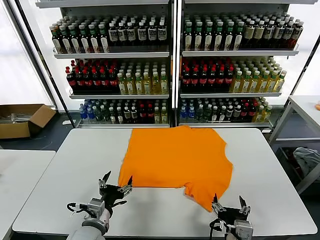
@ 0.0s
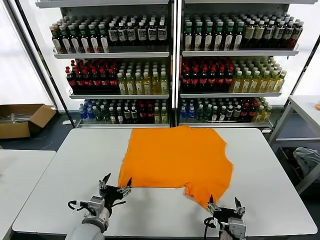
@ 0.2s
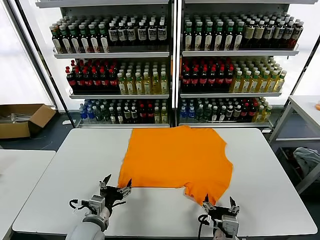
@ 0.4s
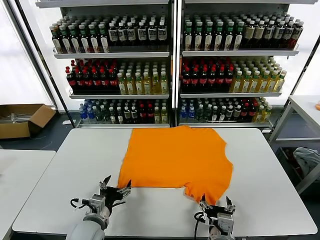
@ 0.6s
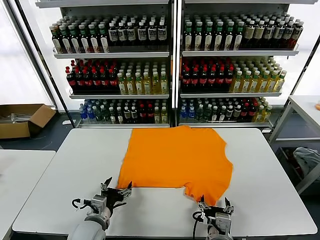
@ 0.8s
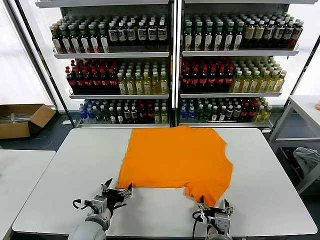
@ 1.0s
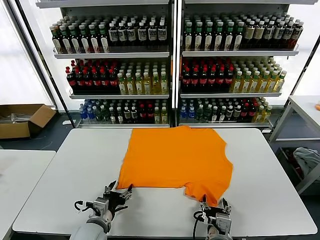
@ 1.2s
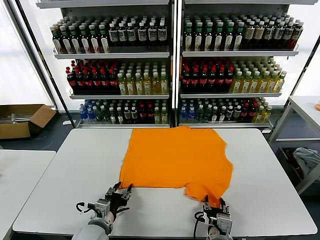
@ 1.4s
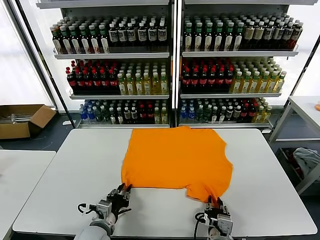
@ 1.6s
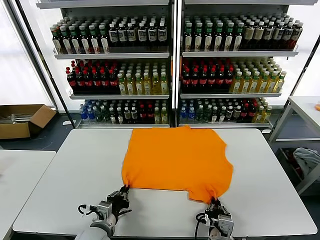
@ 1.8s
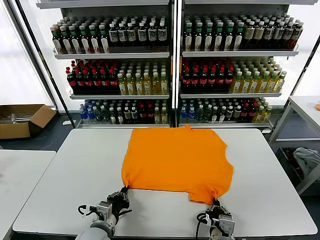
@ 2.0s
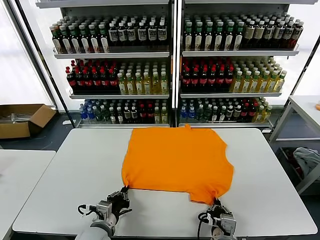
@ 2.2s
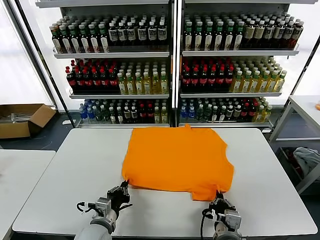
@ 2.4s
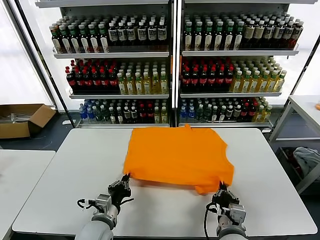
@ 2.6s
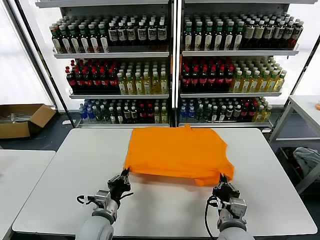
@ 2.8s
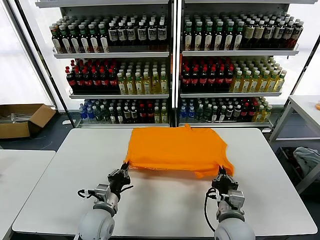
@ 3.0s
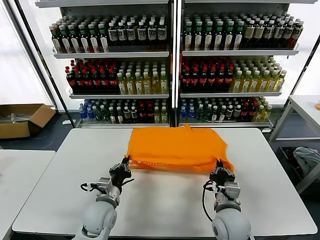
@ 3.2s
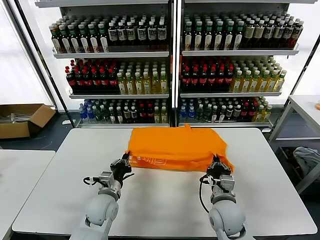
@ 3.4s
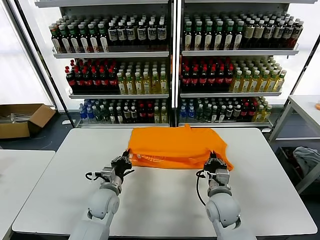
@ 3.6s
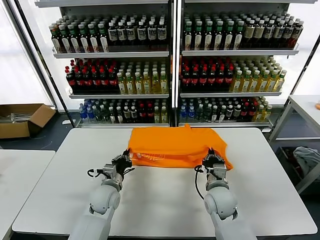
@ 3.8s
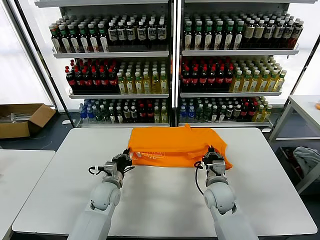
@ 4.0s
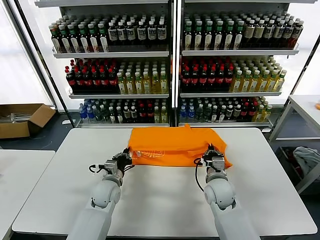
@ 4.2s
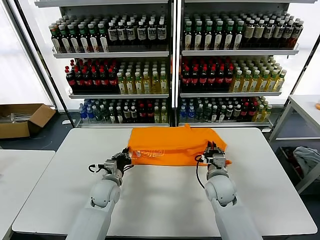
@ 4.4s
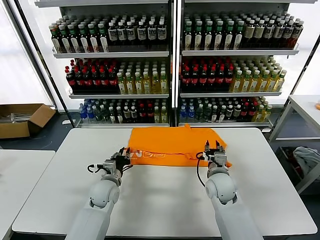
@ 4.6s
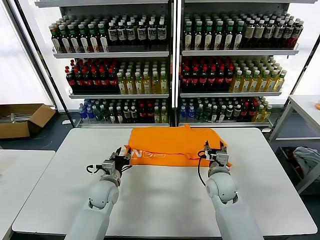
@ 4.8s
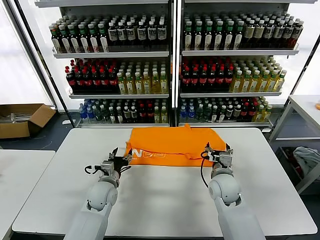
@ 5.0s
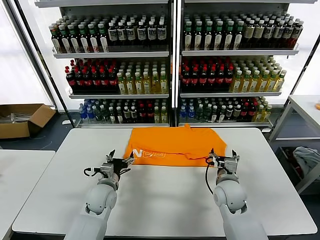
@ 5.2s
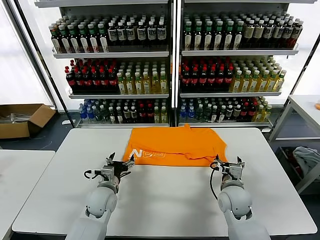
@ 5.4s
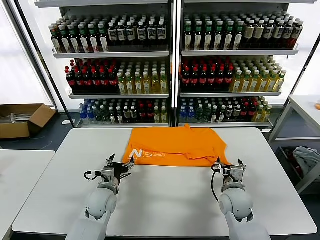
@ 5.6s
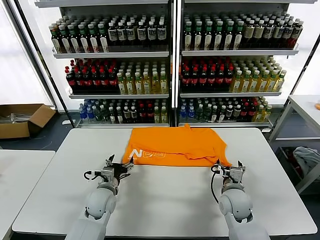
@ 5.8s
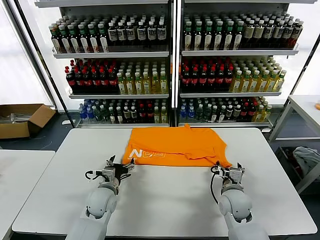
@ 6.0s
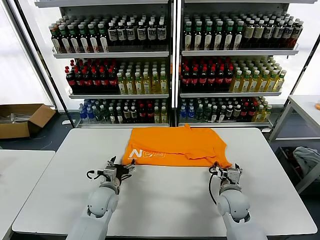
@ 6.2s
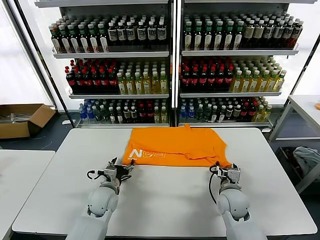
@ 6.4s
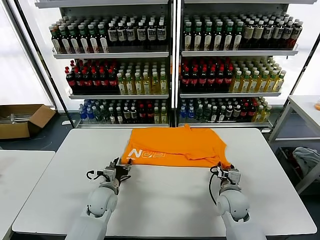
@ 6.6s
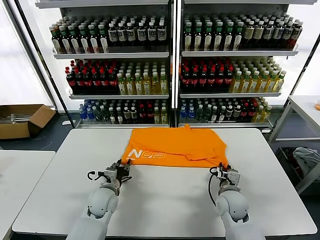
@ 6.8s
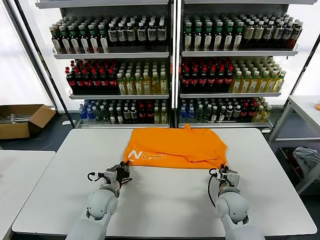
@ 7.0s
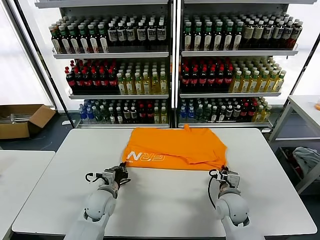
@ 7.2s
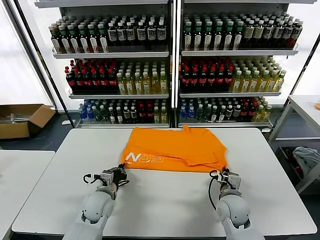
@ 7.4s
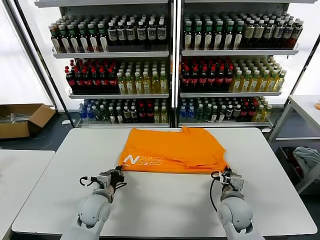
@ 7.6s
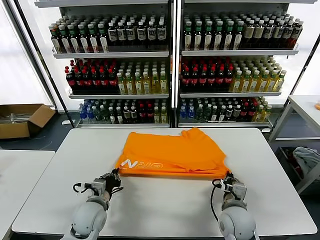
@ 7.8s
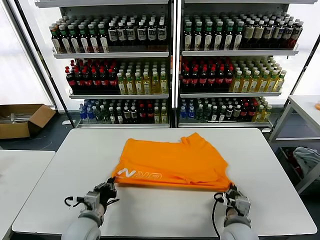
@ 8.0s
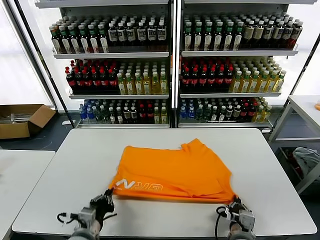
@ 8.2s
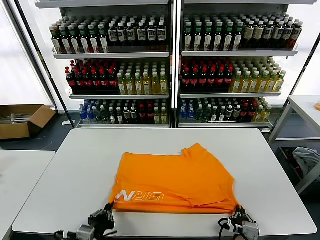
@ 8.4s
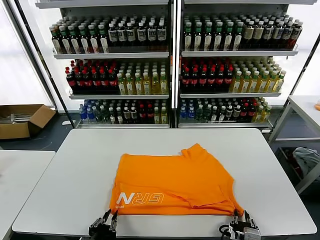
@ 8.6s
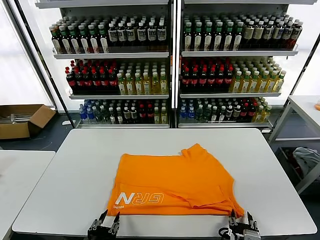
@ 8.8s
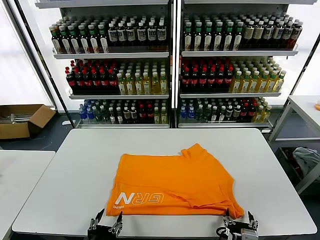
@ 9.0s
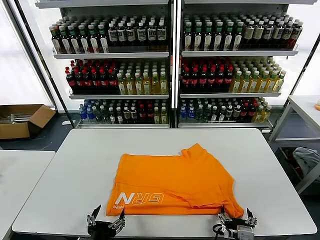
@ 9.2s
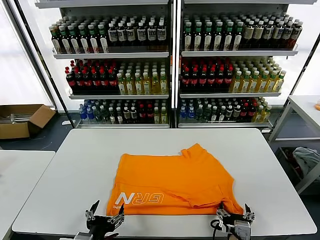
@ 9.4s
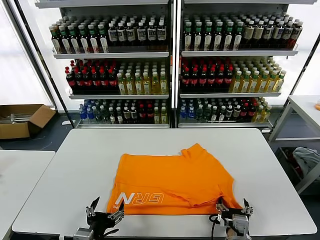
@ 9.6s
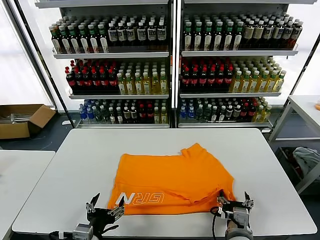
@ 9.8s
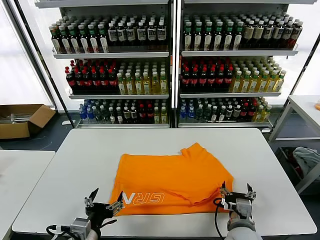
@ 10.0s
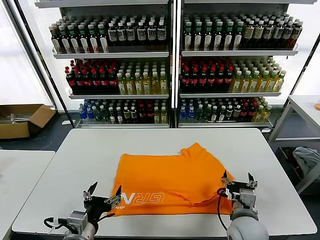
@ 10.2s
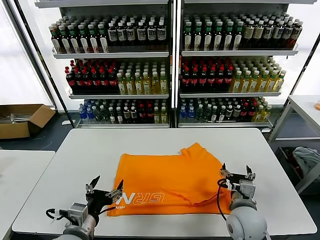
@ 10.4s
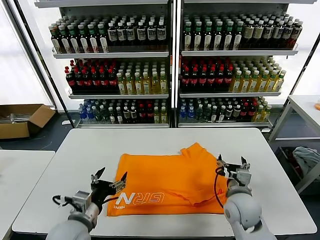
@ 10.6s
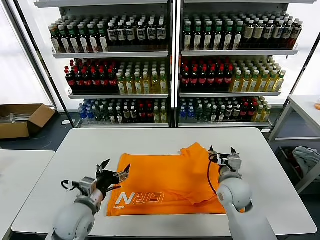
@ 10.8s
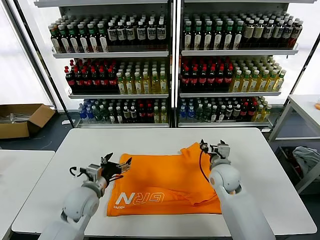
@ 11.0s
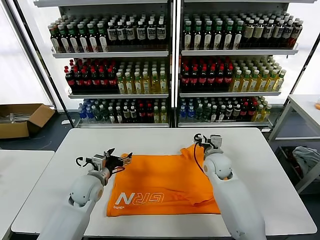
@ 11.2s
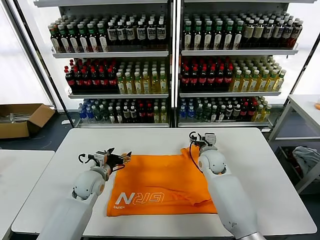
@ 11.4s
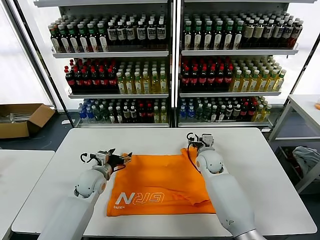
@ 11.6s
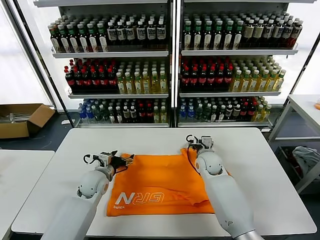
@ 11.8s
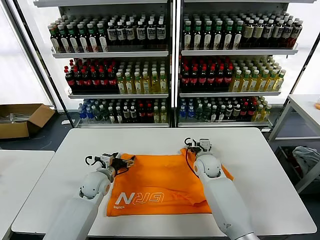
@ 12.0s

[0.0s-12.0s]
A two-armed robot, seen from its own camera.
Task of the whole recording: fold and organize the clothes.
Step, 0.0s to 1.8s: use both grippers simultaneously to clamp the lower edge of the clothing fabric.
Step, 2.0s to 4.8s: use both grippers to drag the lower edge of the fabric forward and fold it over the upper edge.
Step, 5.0s to 9.0s: Drag the clothes downward with both gripper.
1.6s to 3.0s: Both grippers move forward, some 5 cm.
3.0s to 4.4s: The grippers both shift forward by about 10 cm. The right gripper opens up.
4.4s to 6.0s: The left gripper opens, while the right gripper ends up approximately 5 cm from where it was, and opens up.
6.0s to 7.6s: The left gripper closes its fingers, while the right gripper moves backward, some 5 cm, and closes its fingers.
7.6s to 9.0s: The two grippers go about 20 cm backward. The right gripper opens up, while the left gripper opens.
9.0s to 10.4s: The left gripper travels forward by approximately 10 cm, while the right gripper is displaced forward by approximately 15 cm.
10.4s to 12.0s: The grippers both shift forward by about 20 cm.

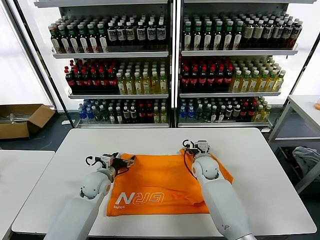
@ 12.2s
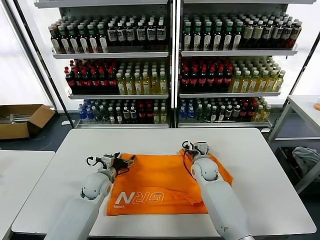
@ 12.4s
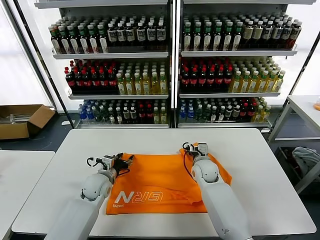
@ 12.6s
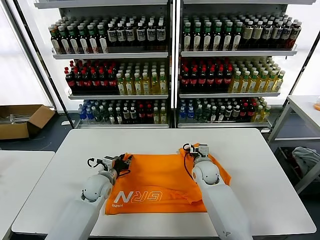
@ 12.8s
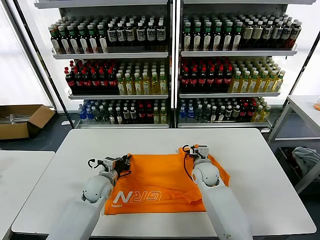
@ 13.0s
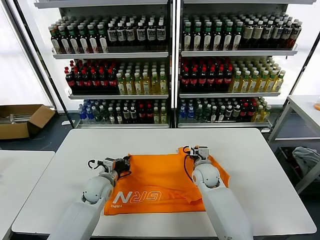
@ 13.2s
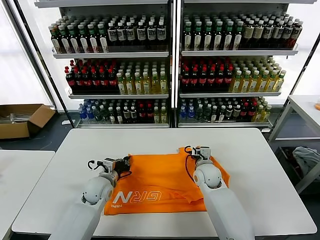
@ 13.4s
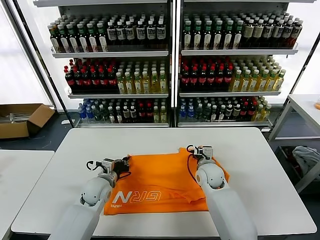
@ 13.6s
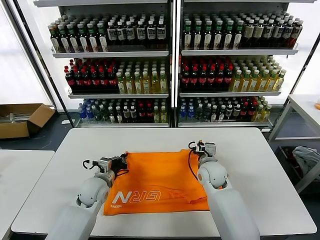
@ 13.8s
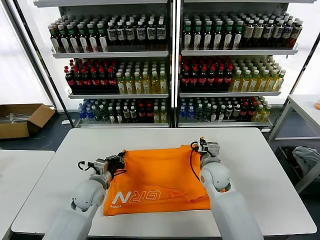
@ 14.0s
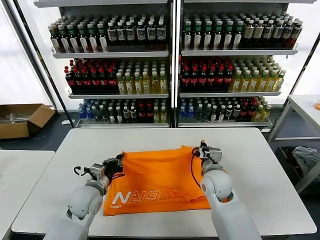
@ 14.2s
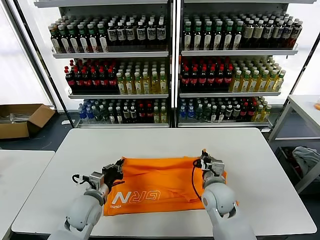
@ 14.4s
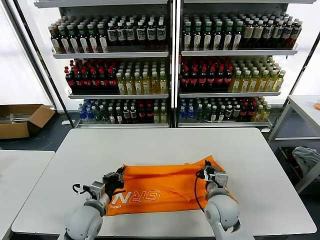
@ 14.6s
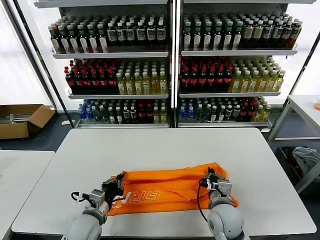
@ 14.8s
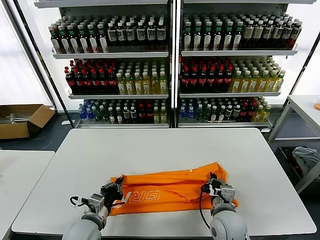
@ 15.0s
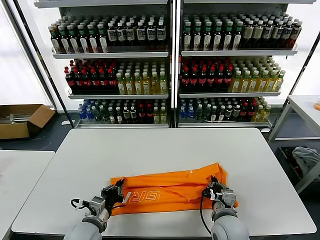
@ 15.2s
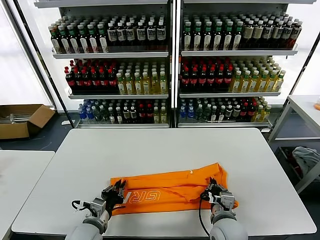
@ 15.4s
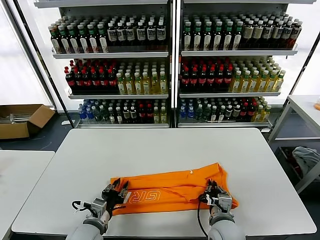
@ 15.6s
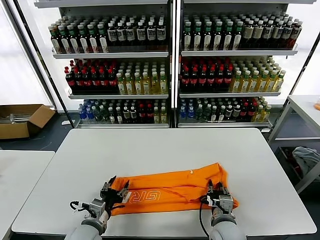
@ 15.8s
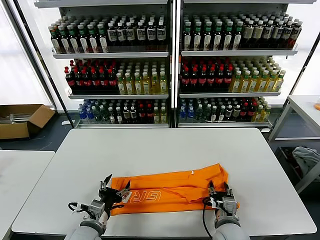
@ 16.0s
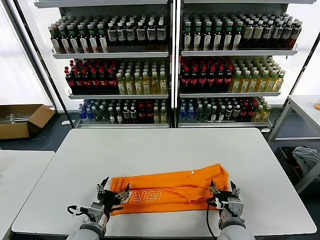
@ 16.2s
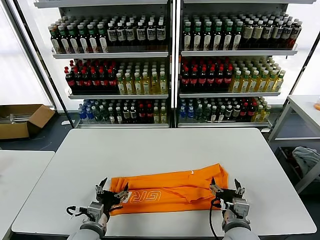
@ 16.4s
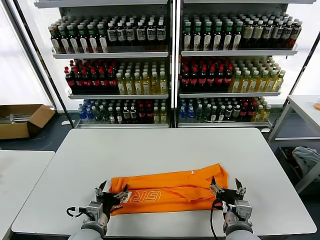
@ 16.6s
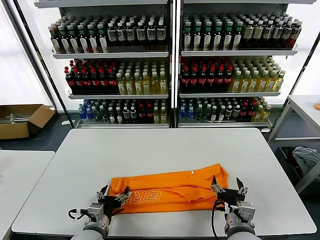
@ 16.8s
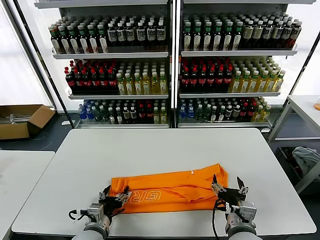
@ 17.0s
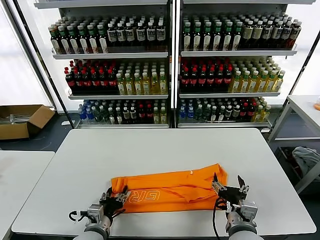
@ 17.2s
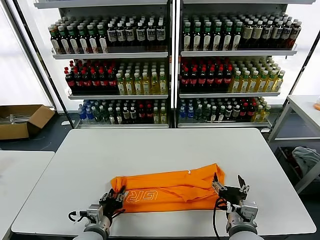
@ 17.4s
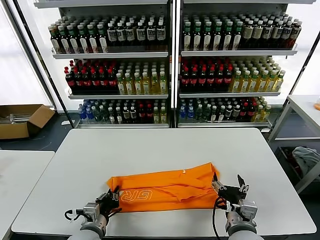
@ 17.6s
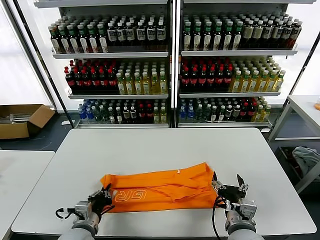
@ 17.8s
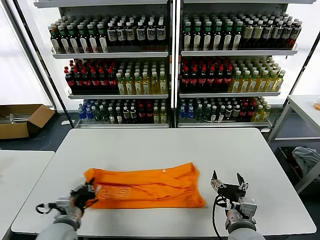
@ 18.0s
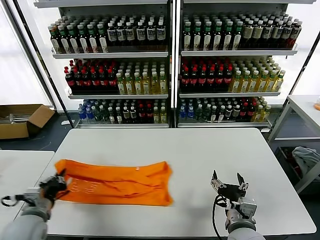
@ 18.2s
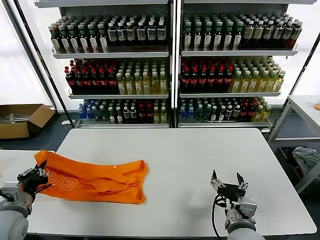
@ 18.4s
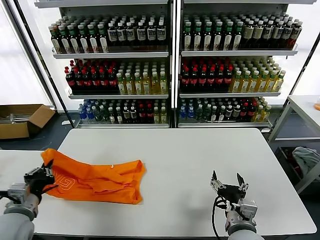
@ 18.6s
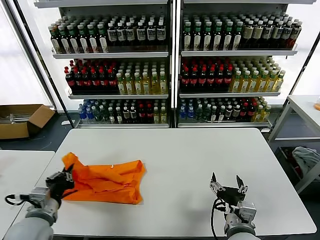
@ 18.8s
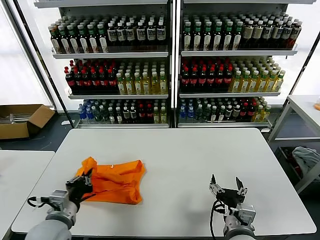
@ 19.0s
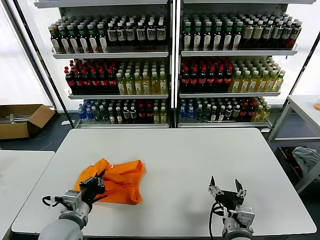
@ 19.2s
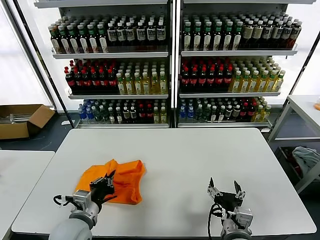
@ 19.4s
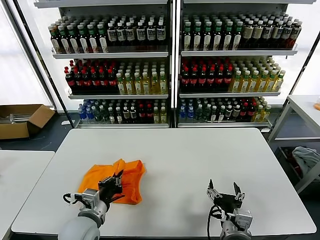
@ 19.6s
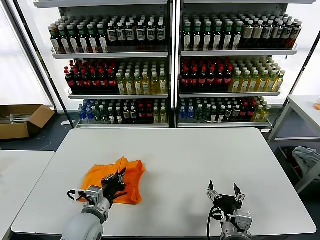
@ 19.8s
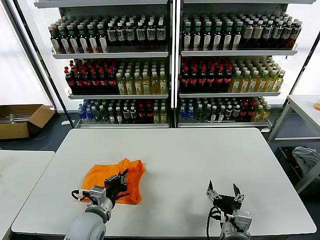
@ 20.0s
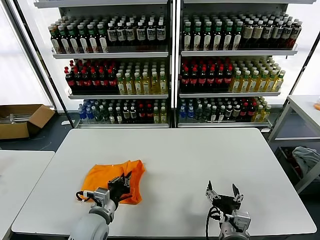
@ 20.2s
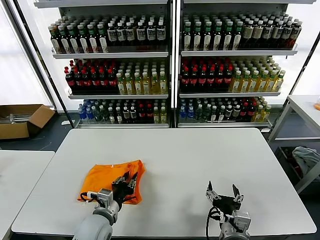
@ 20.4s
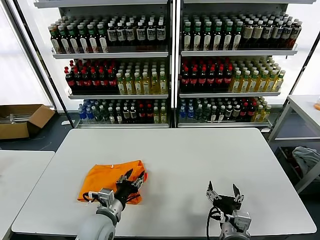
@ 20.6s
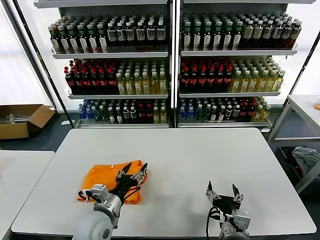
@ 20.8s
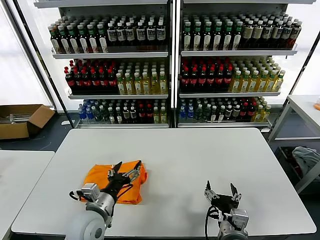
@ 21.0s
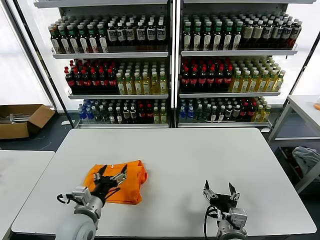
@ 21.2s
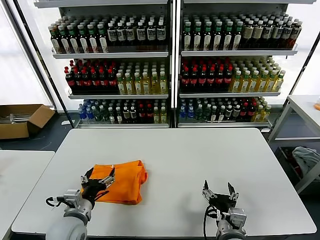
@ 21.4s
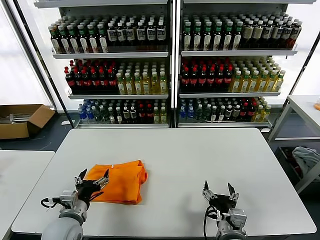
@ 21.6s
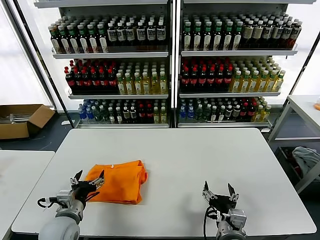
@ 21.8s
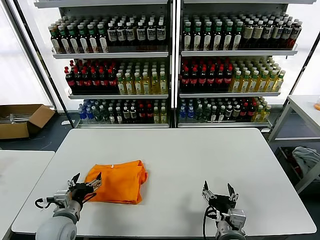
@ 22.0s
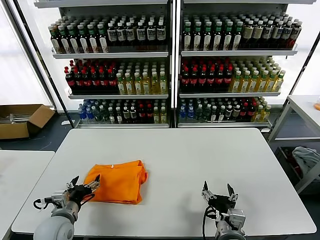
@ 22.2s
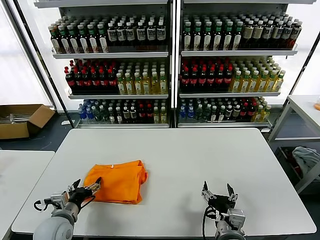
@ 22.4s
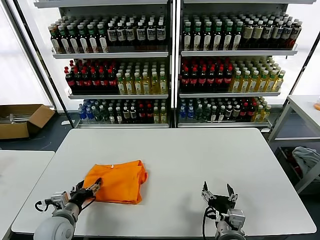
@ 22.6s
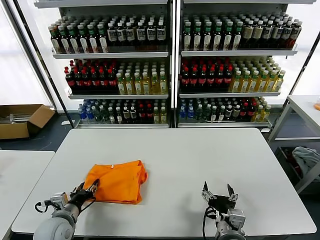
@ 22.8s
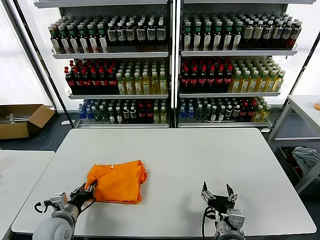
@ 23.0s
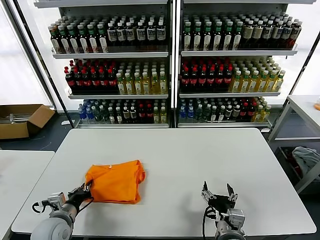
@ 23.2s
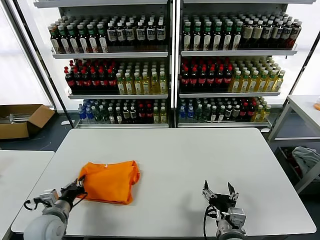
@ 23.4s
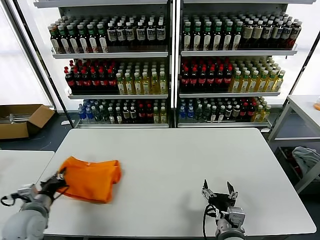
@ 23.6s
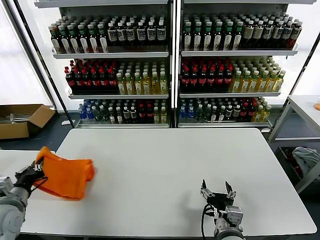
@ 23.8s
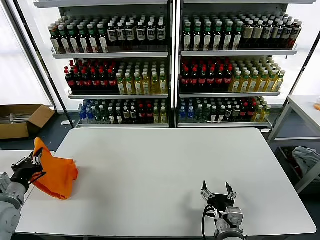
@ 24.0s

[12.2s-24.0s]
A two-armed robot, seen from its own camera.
Task of the whole recording: fold and organize the clothes.
Step, 13.4s to 16.2s: use both grippers to drag the upper edge of the fabric backward and fold it over the lower edge.
Step, 16.4s to 17.6s: use the left gripper to clamp the left edge of the fabric.
Step, 17.8s to 20.6s: use the left gripper to drag the left edge of the fabric to the left and folds it over the right edge.
12.2s to 13.6s: The left gripper closes, while the right gripper closes its fingers.
13.6s to 15.2s: The grippers both shift backward by roughly 15 cm.
15.2s to 16.6s: The right gripper changes place by roughly 5 cm, and opens its fingers. Meanwhile the left gripper opens.
16.6s to 18.2s: The left gripper moves to the left and upward, roughly 15 cm, and closes its fingers.
18.2s to 19.6s: The left gripper moves to the right, some 15 cm.
19.6s to 21.0s: The left gripper opens up.
21.0s to 22.6s: The left gripper travels to the left by approximately 10 cm.
22.6s to 24.0s: The left gripper is displaced upward and to the left by some 15 cm, and closes its fingers.
